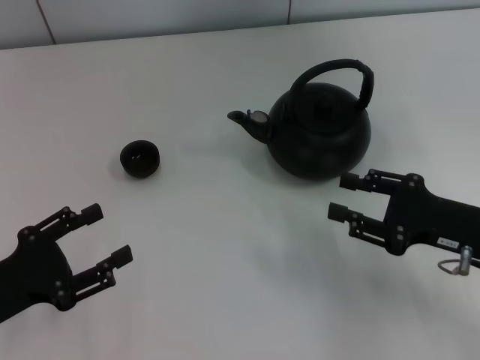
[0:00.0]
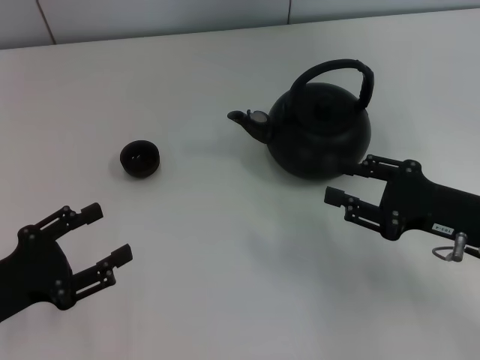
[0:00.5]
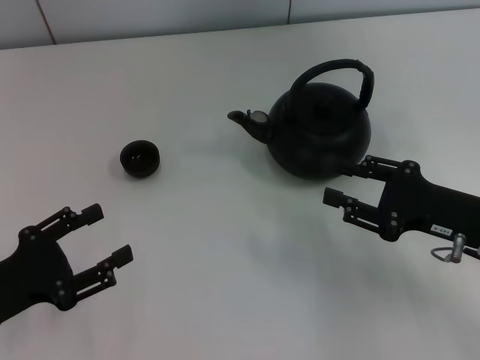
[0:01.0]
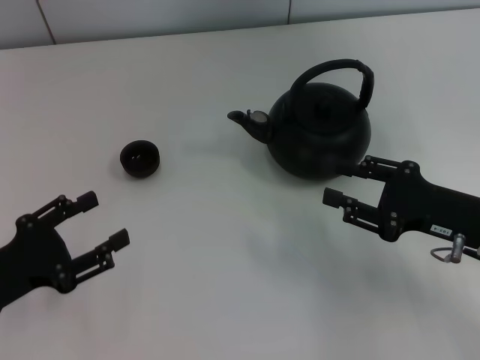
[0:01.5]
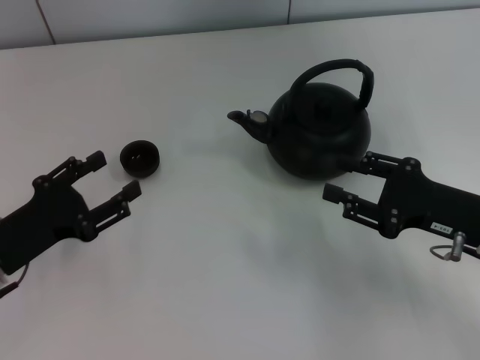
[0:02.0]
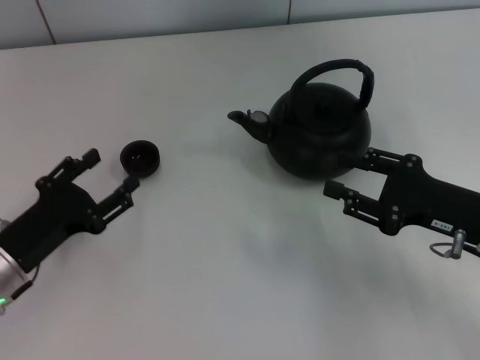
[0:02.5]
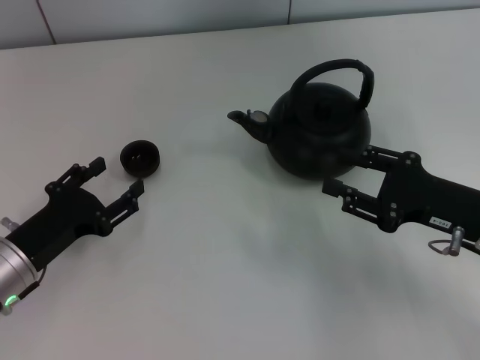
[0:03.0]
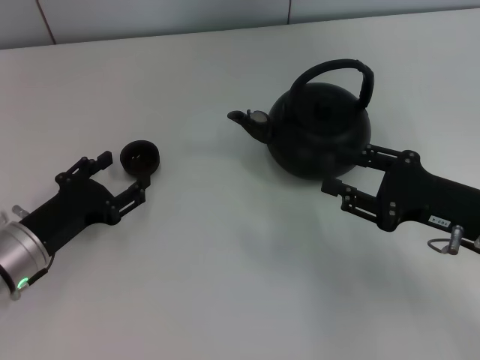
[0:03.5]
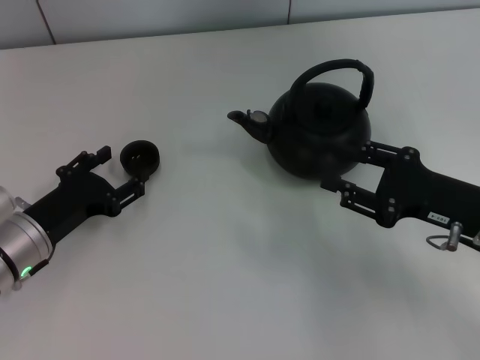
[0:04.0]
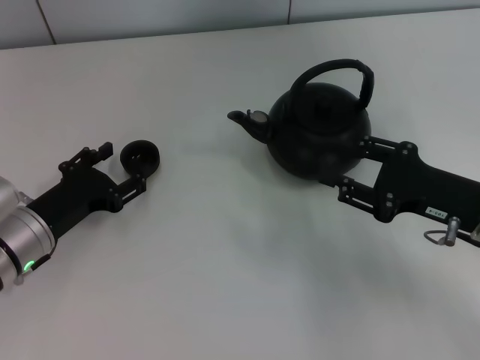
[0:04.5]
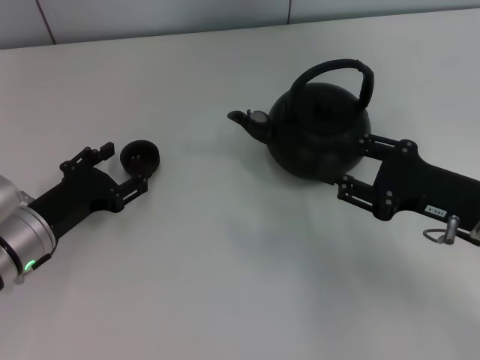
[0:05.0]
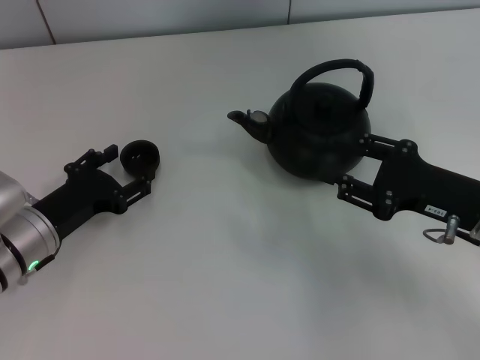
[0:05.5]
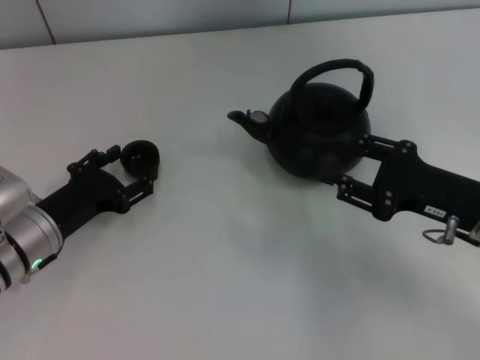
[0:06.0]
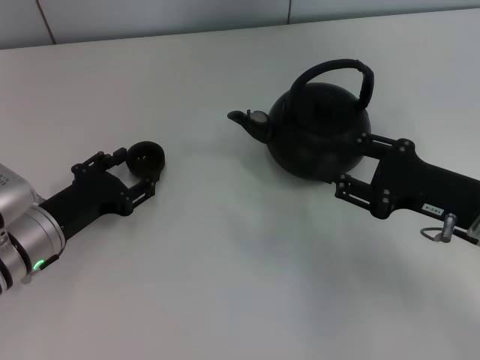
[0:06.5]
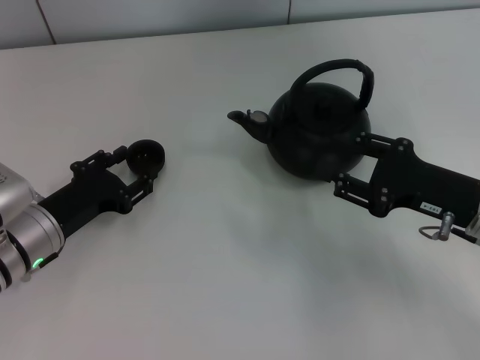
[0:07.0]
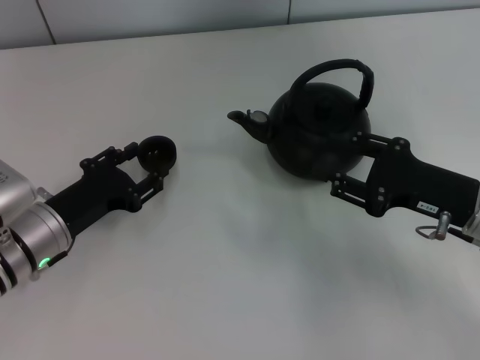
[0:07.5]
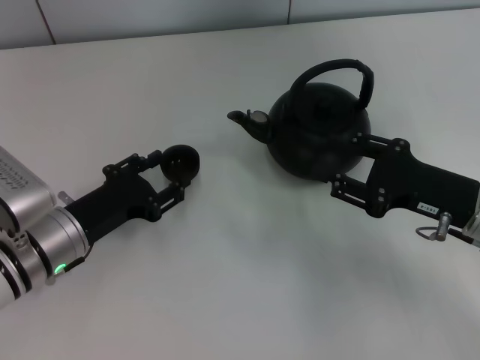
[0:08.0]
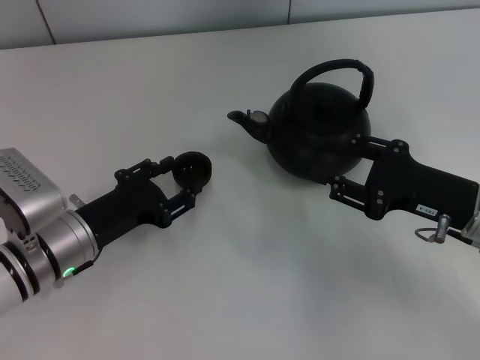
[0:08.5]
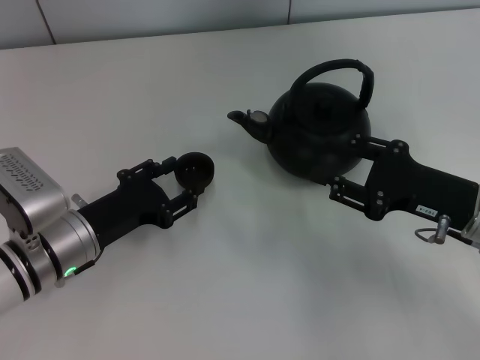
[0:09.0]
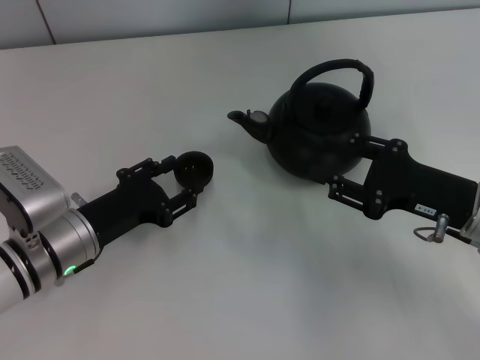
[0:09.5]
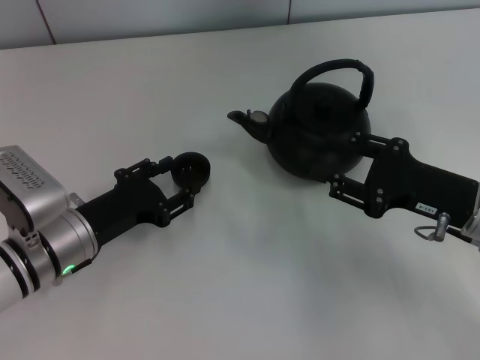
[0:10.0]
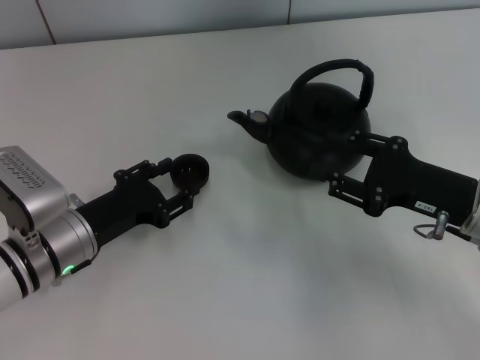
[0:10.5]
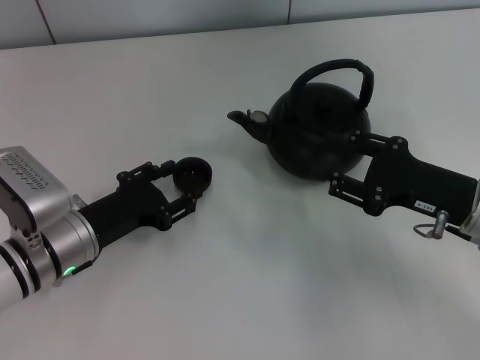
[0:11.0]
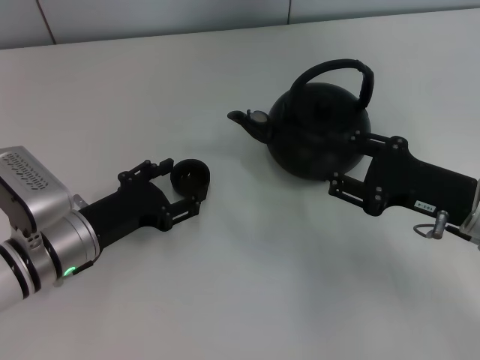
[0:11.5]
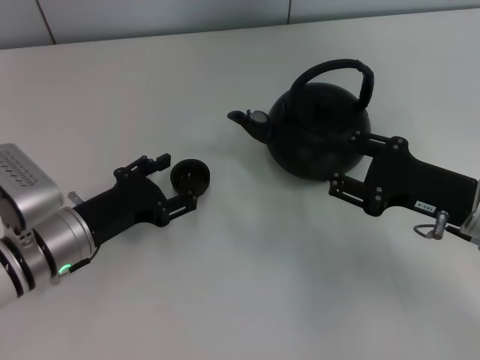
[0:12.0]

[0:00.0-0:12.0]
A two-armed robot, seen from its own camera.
Task of the whole recording: Grasp the handle of the teapot with one hand and pour tea into the teacup.
Step, 0:00.0 to 0:08.0: Pick up the teacup with the left gripper.
0:00.0 to 0:02.0: The left gripper ends up approximately 5 cm from where it was.
0:02.0 to 0:04.0: The left gripper ends up about 5 cm from where it was.
0:04.0 to 0:06.0: Neither gripper changes place.
0:06.0 to 0:08.0: The left gripper closes.
0:08.0 to 0:10.0: The two grippers keep their place.
0:10.0 to 0:12.0: The left gripper opens up.

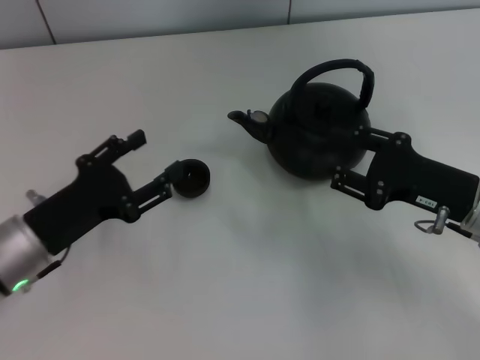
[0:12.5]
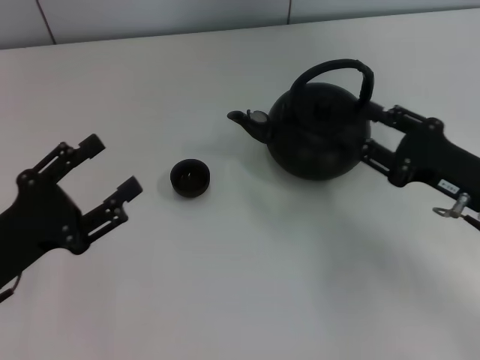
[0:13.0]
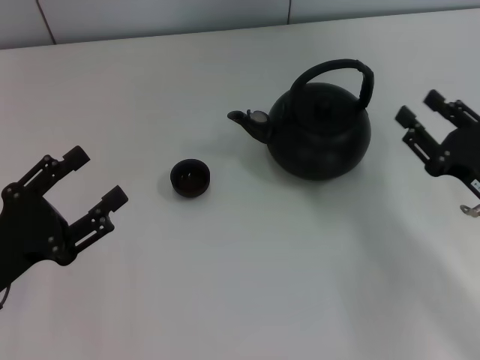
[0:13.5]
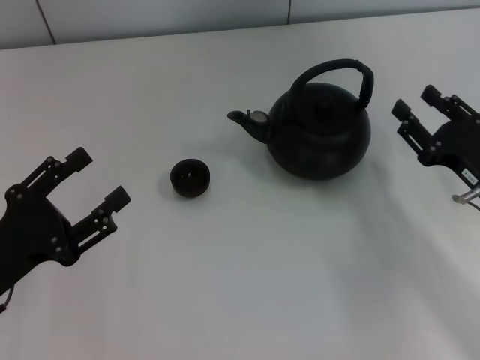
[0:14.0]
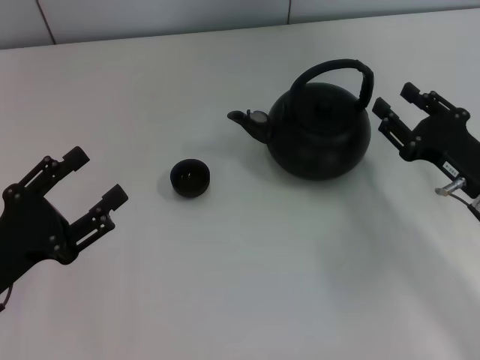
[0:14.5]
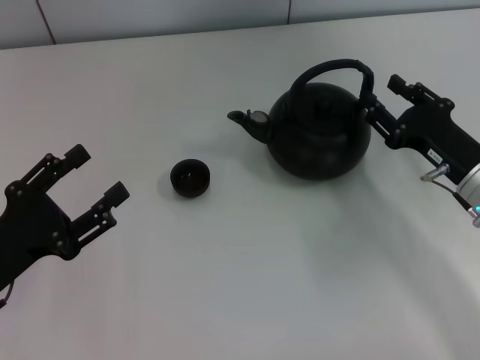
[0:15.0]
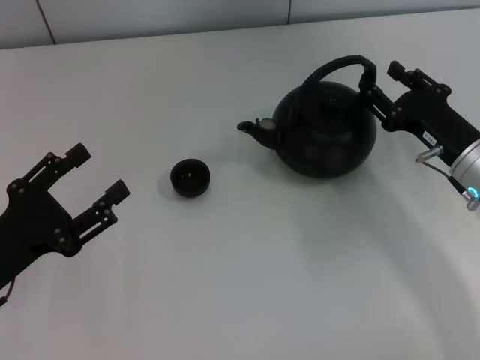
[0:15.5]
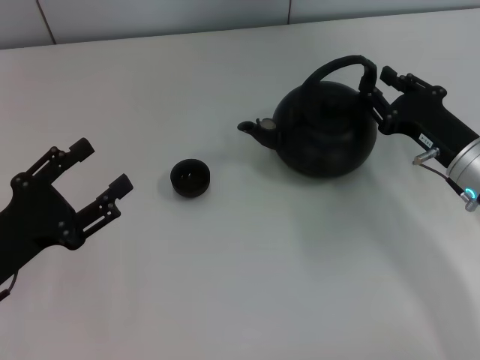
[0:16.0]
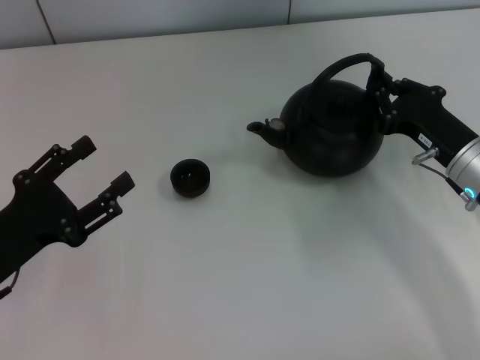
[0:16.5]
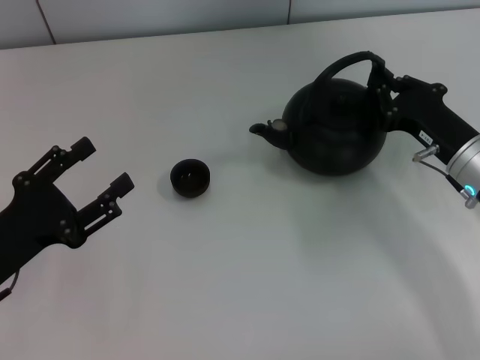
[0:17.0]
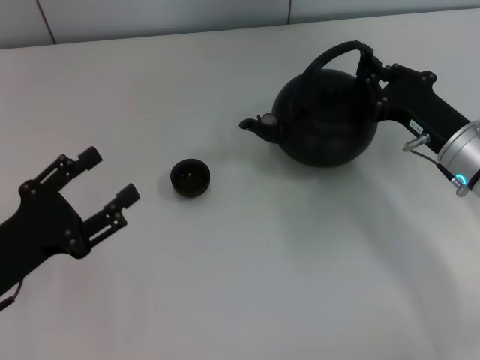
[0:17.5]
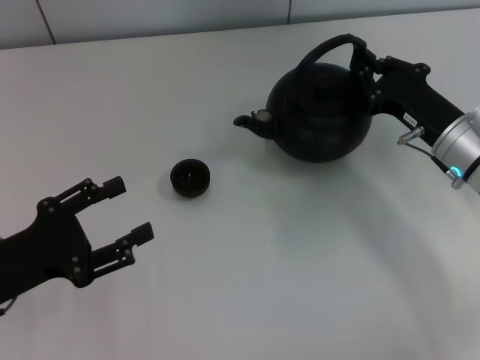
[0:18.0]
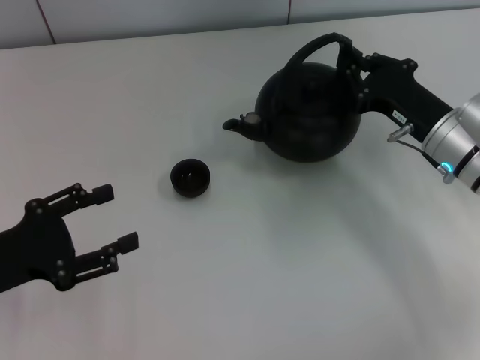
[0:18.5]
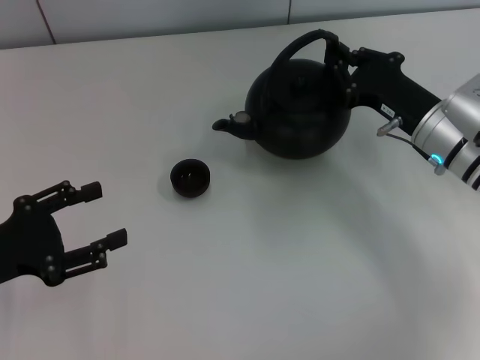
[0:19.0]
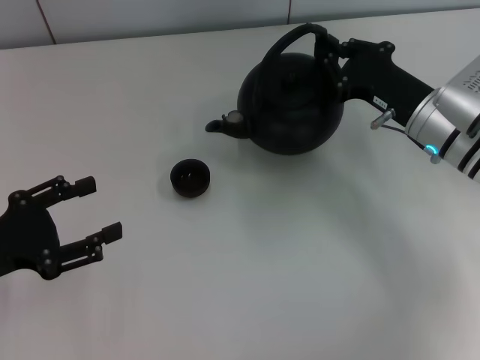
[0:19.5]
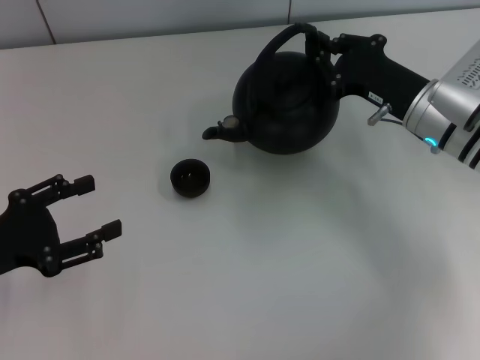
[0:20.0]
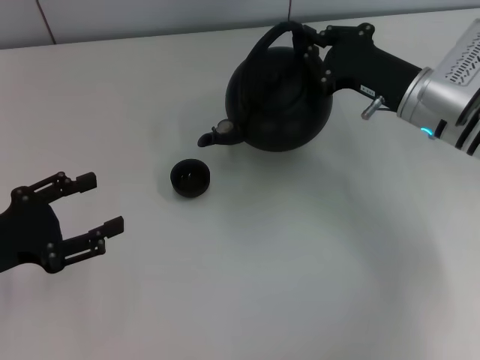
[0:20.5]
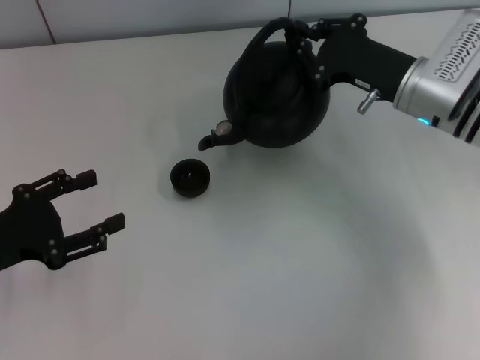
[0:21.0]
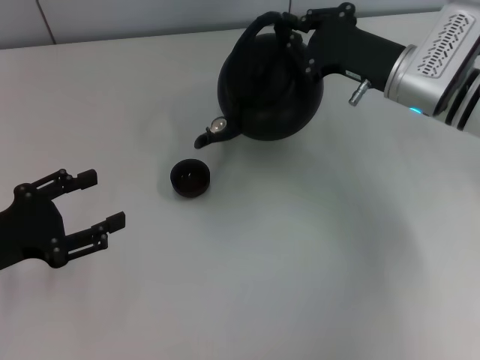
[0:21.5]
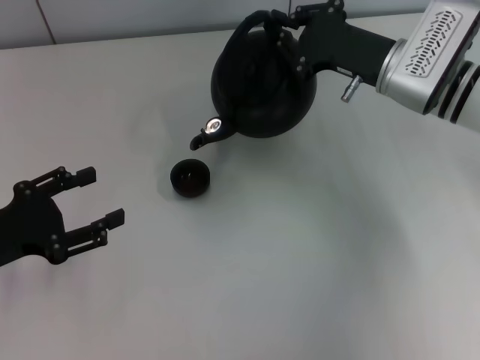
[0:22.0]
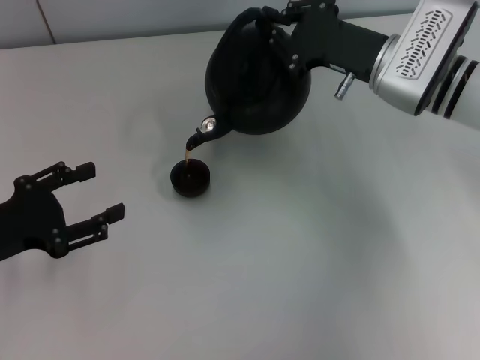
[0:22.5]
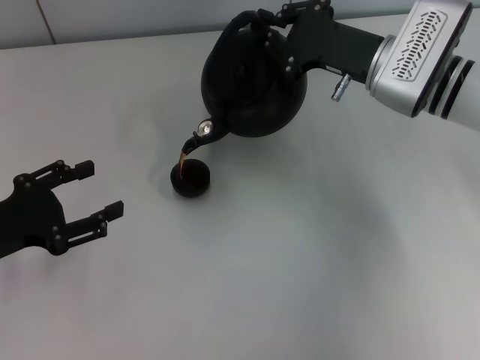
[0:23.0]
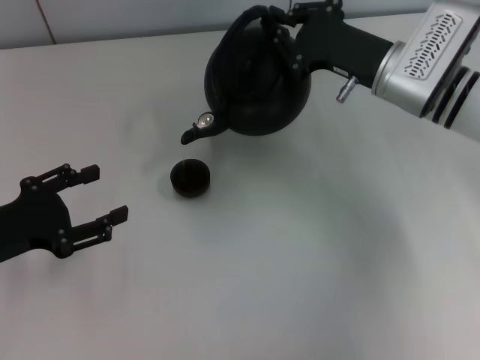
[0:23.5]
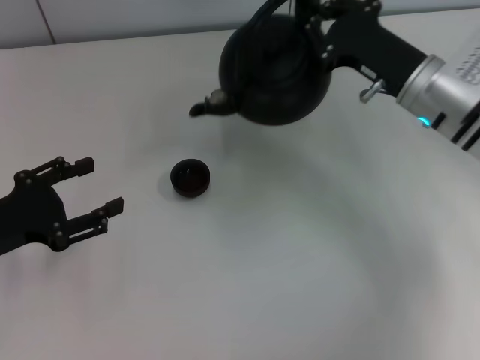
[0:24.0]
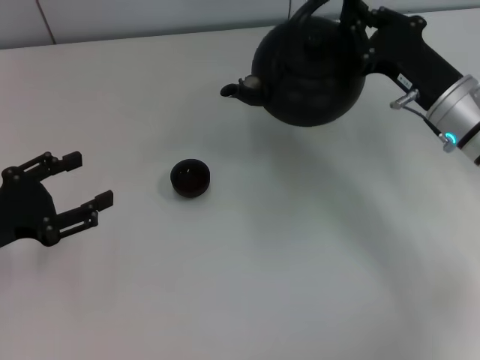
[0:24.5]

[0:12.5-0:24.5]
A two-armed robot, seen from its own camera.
Task of the whole recording: Grasp the handle of the teapot with one hand and pour tea into the teacup.
Step, 0:14.5 to 0:19.0: Pick up the teapot with the right gripper.
0:12.5 to 0:14.5: The left gripper travels backward by roughly 5 cm.
0:14.5 to 0:16.5: The right gripper closes.
0:18.5 to 0:20.5: The right gripper changes place by some 5 cm.
0:20.5 to 0:22.5: The grippers move only a little.
0:22.5 to 0:24.5: The right gripper travels backward by about 5 cm.

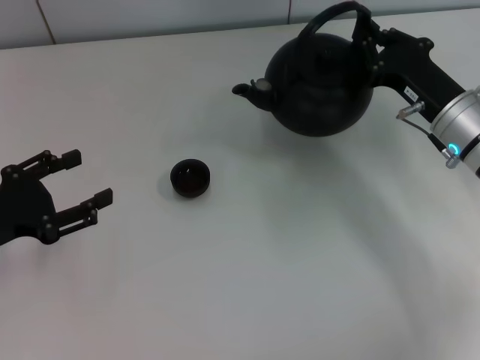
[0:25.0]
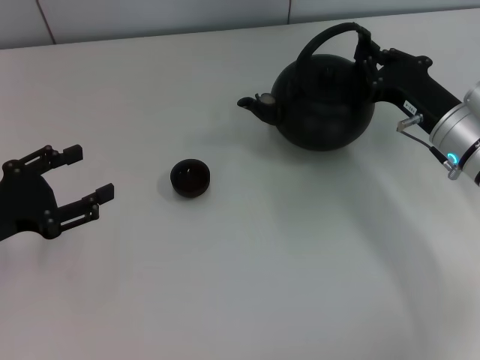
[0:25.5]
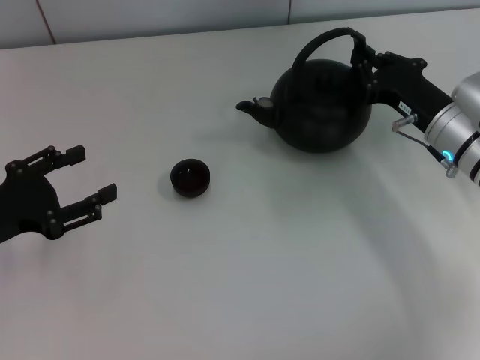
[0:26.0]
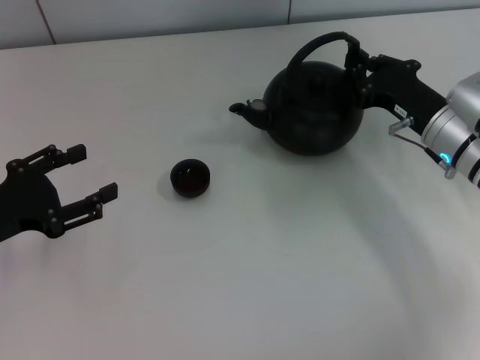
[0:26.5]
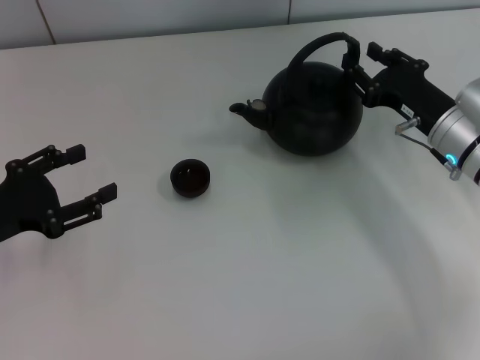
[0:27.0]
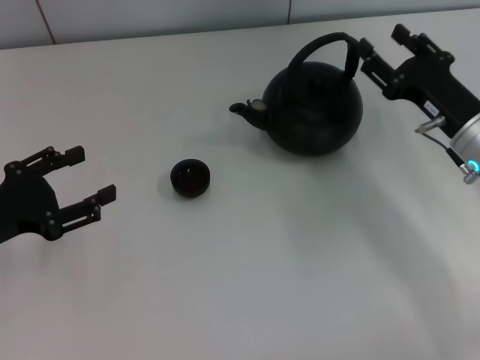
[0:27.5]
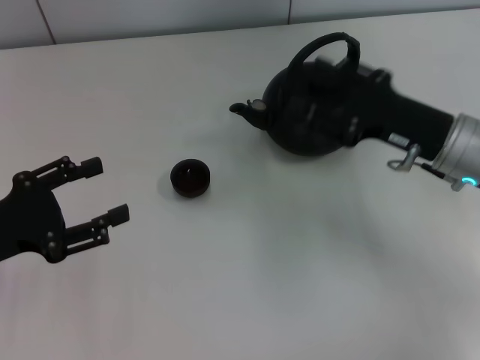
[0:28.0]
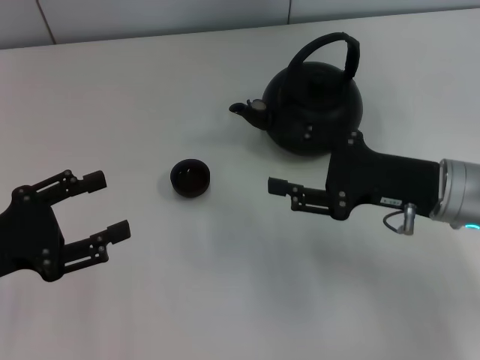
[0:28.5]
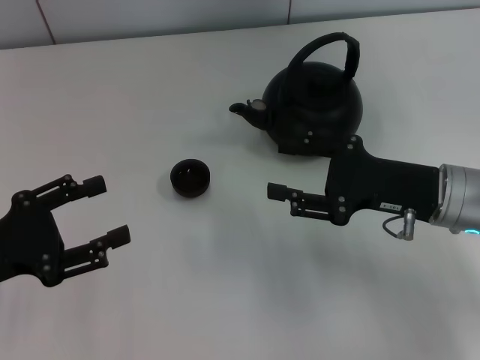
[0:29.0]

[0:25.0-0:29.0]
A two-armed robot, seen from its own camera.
Task of the whole recording: Grasp the handle of the teapot with one hand and pour tea into the teacup.
Step, 0:25.0 to 0:28.0: Put down the teapot with the right gripper.
0:25.0 to 0:27.0: The grippers move only a little.
0:27.0 to 0:29.0: The right gripper shifts roughly 5 cm backward, and opens its fingers.
